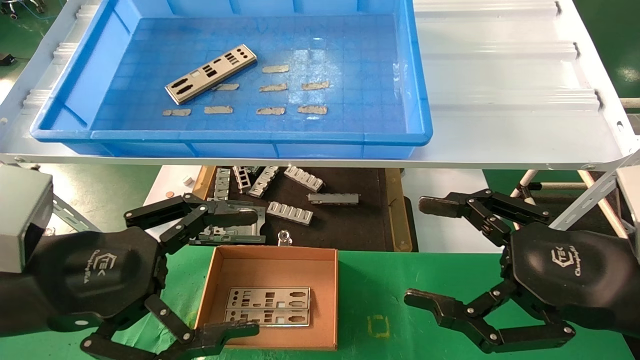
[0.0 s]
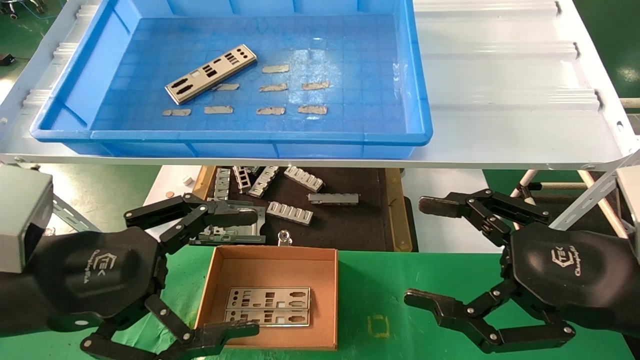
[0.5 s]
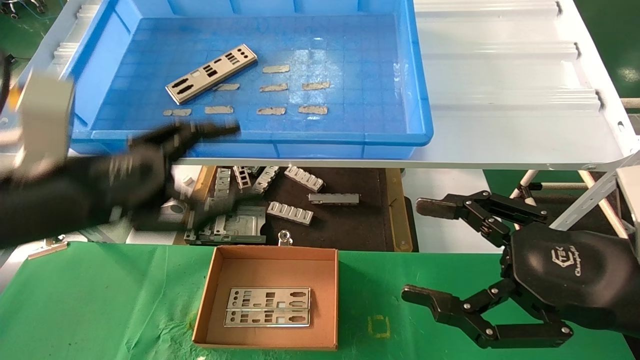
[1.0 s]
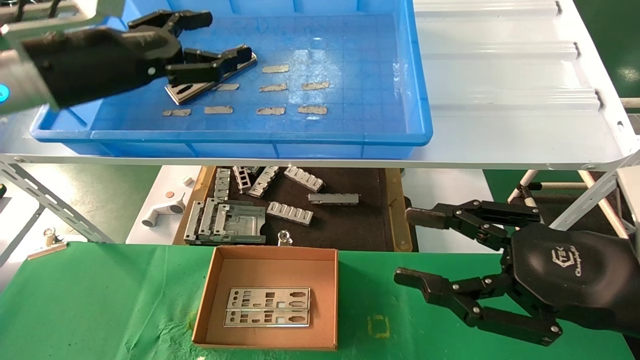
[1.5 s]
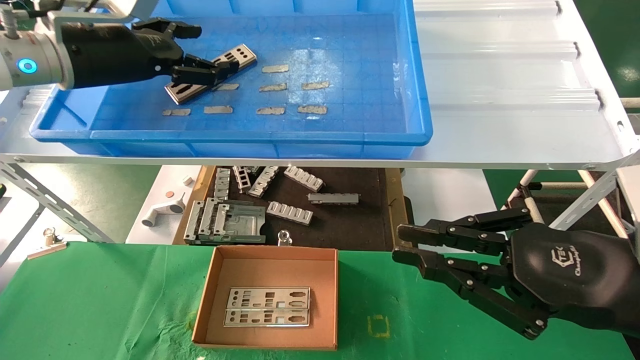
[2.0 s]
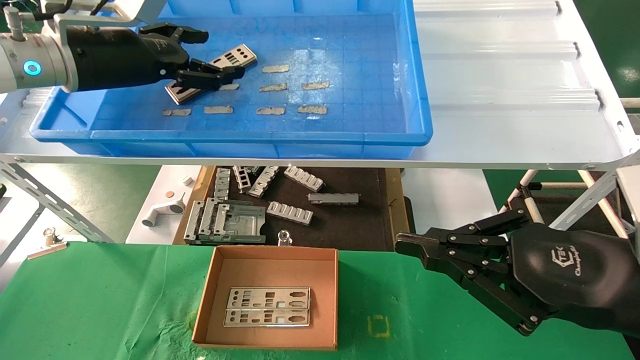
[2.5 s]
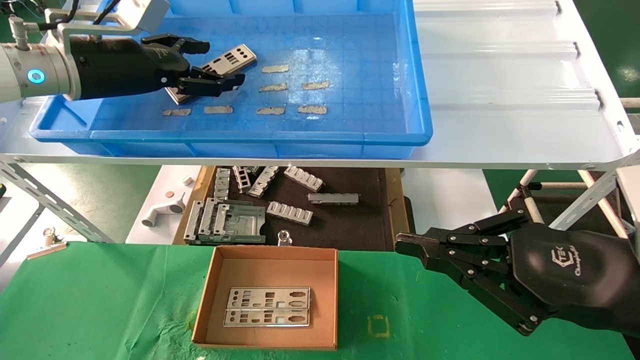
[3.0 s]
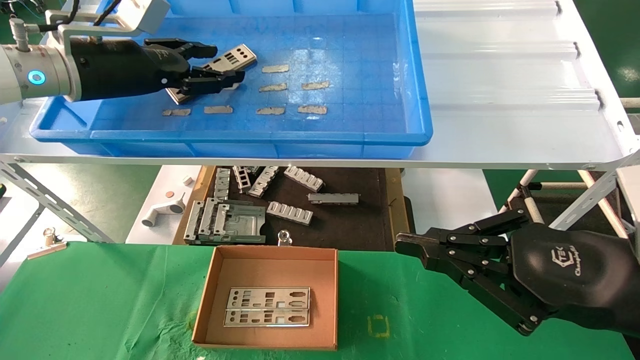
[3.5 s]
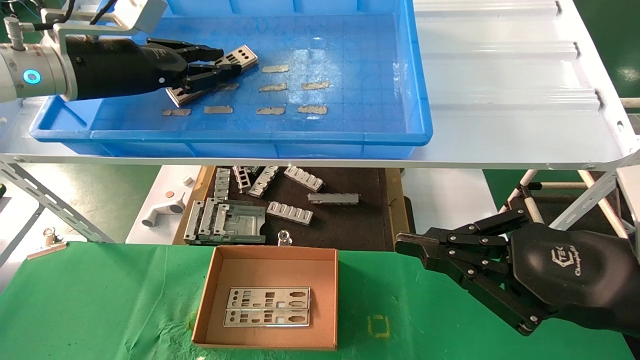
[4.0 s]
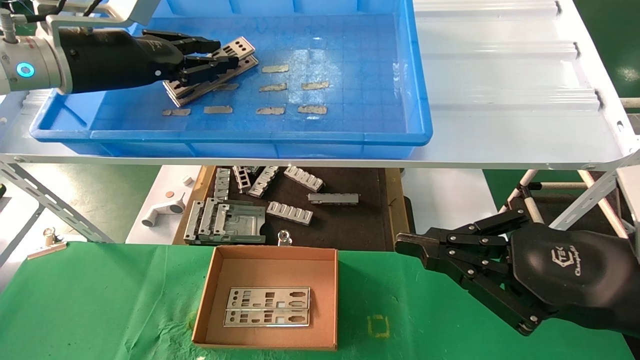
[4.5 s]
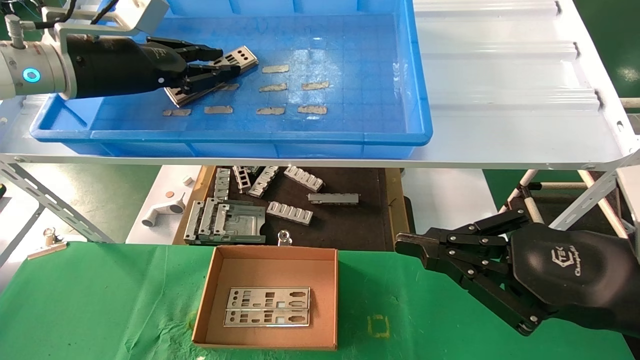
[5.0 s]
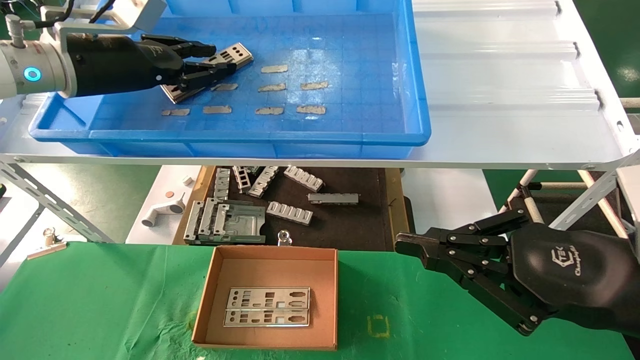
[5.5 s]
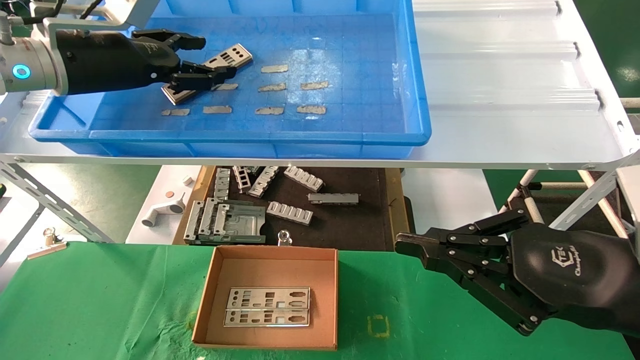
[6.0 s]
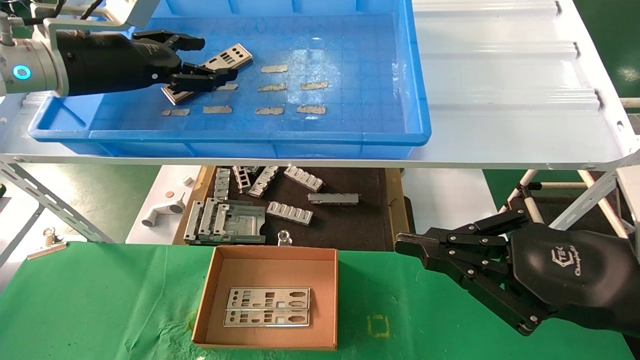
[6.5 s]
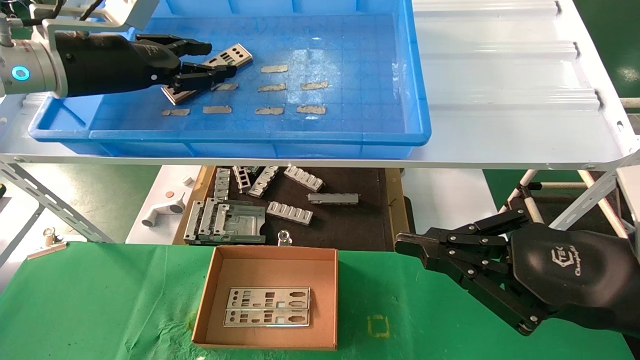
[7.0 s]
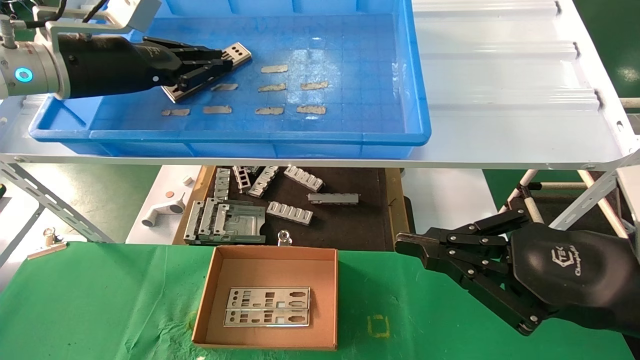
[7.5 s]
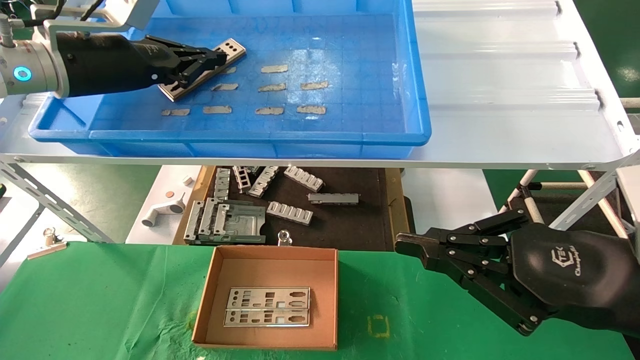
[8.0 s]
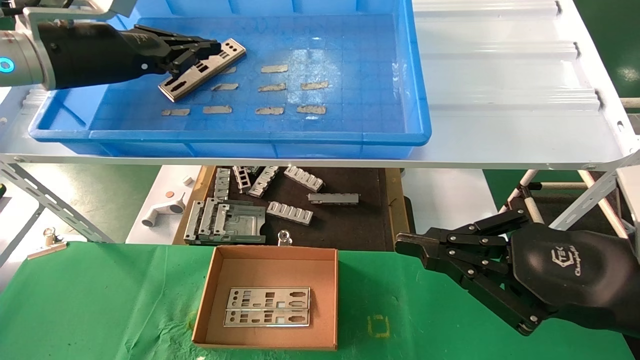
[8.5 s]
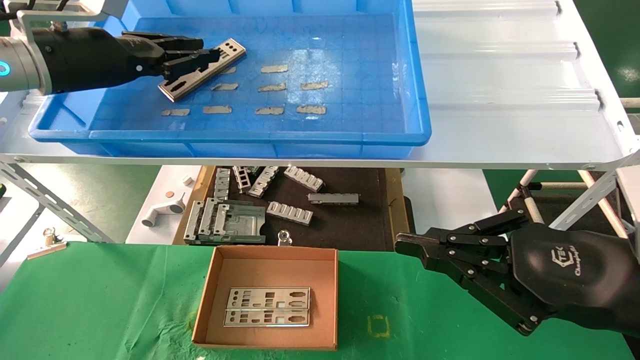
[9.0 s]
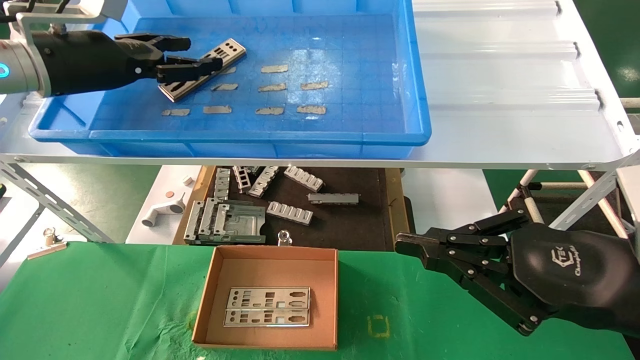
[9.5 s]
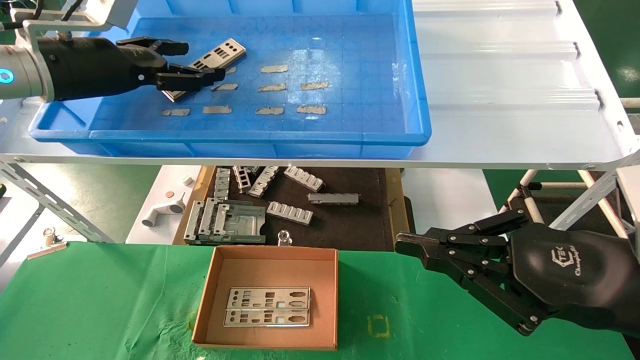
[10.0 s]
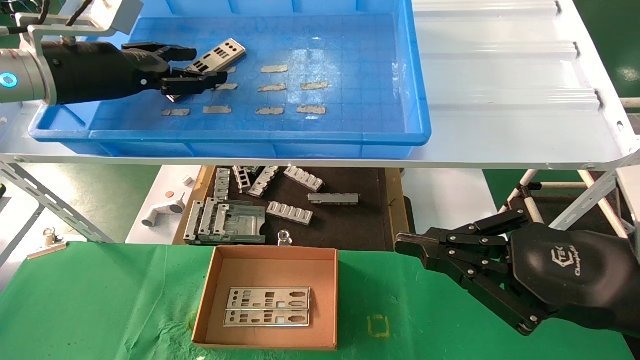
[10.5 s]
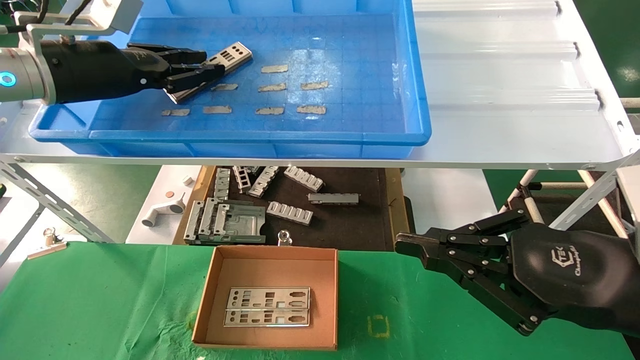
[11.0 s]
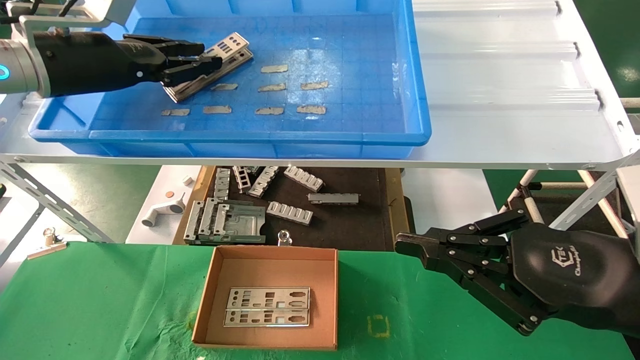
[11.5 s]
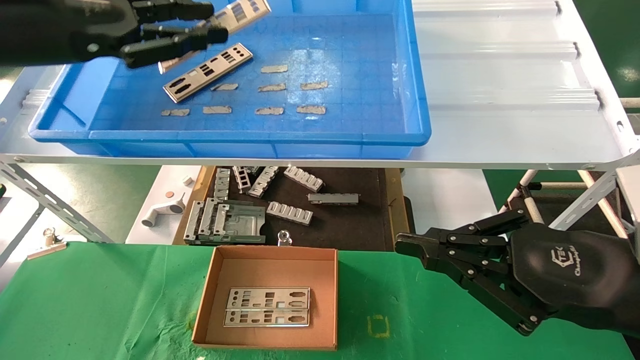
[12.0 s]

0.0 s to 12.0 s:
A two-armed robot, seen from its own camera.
Task of the whole recording: pick up the parts on the tray and put them in the cardboard box.
Step, 1.0 to 11.0 s: Pick up the IO bracket from the container box.
0.0 to 2.0 s: The right gripper closes its fingers. The left gripper moves forward and upward, roughly 25 cm.
2.0 to 4.0 s: The left gripper closes its fingers.
4.0 to 6.0 s: The two grippers keep their place.
6.0 to 8.0 s: The left gripper closes up.
8.0 to 10.0 s: The left gripper opens.
10.0 to 12.0 s: The left gripper moves backward, about 10 cm, and closes up.

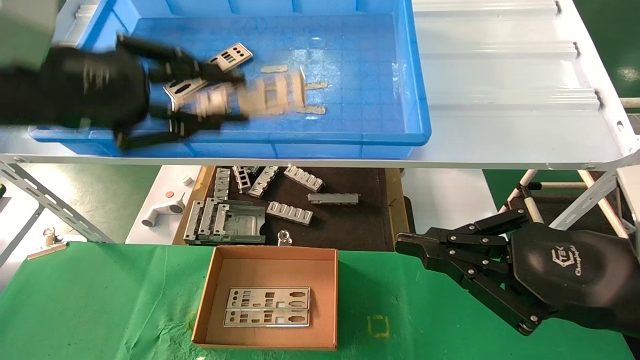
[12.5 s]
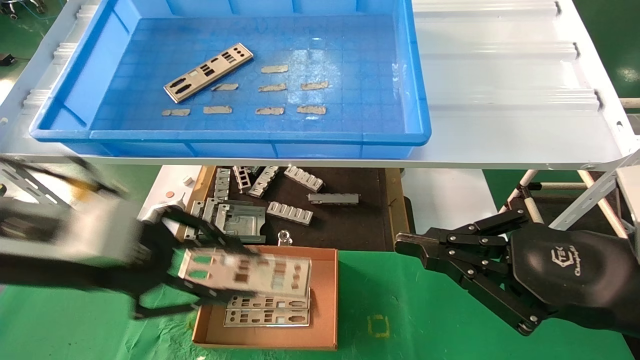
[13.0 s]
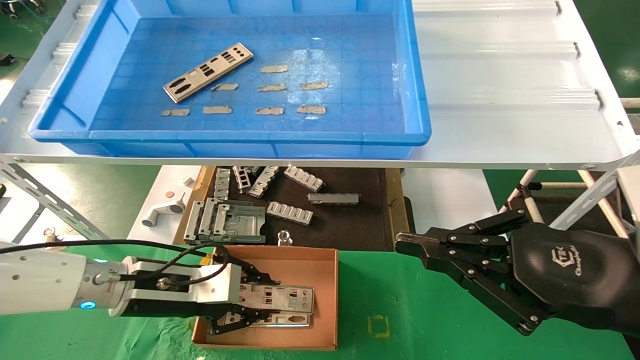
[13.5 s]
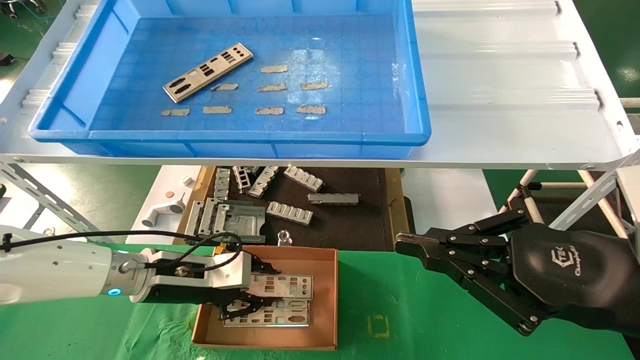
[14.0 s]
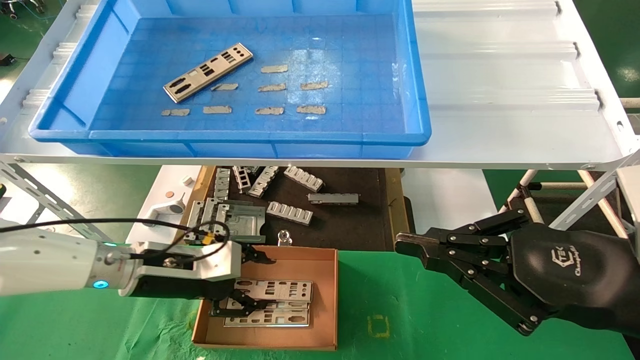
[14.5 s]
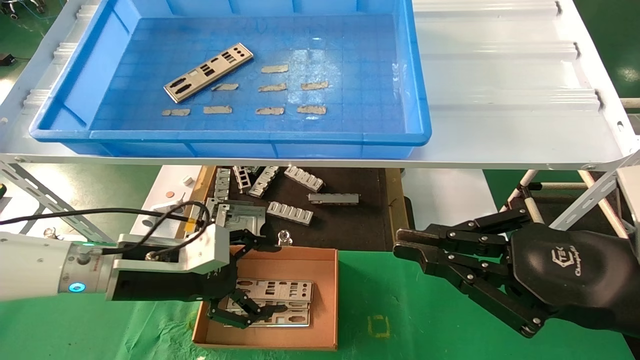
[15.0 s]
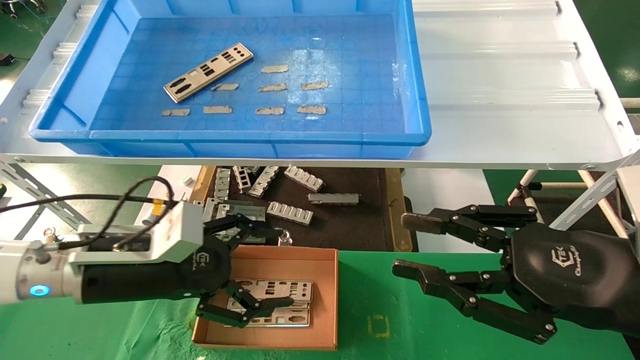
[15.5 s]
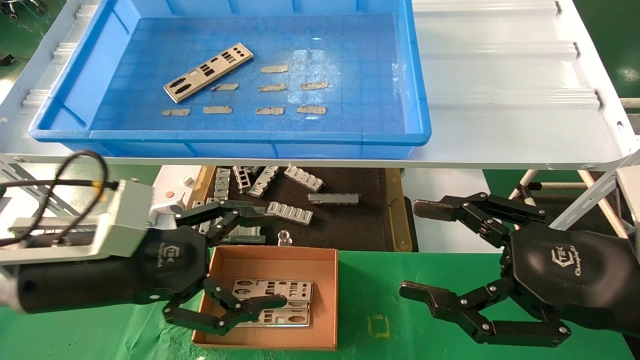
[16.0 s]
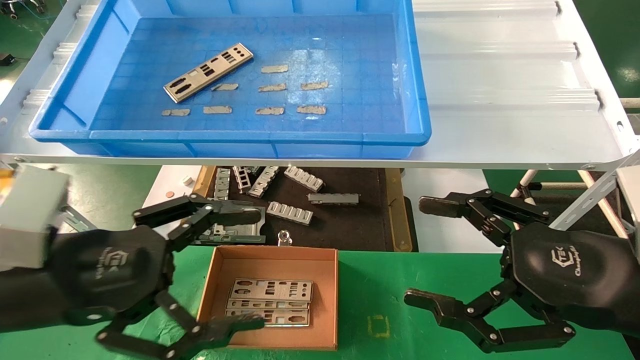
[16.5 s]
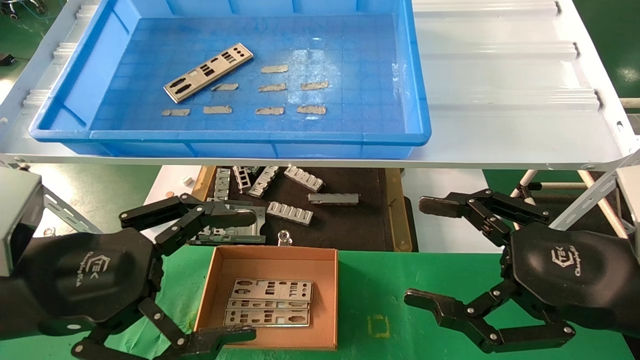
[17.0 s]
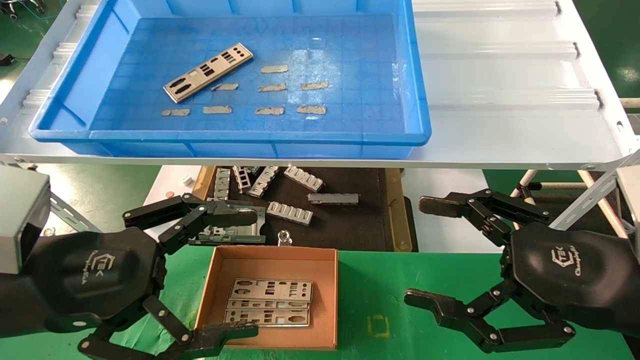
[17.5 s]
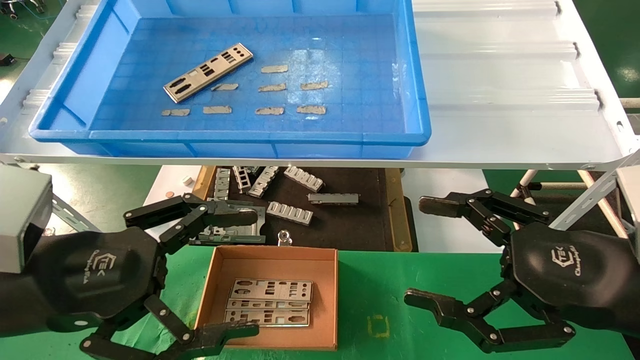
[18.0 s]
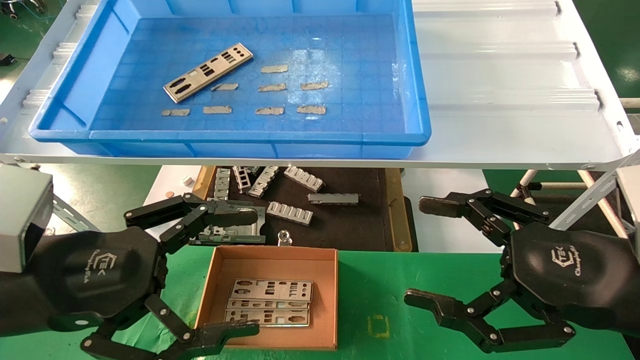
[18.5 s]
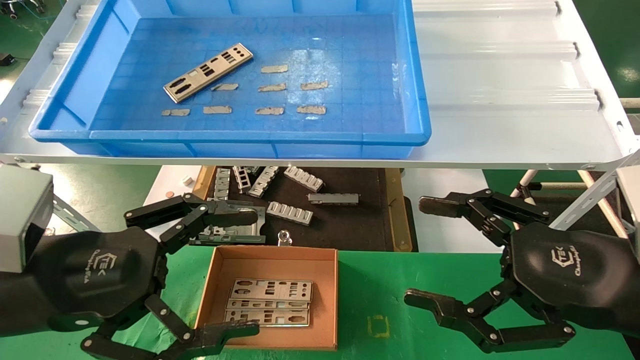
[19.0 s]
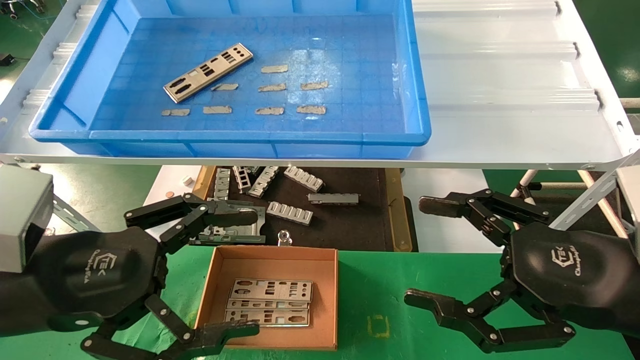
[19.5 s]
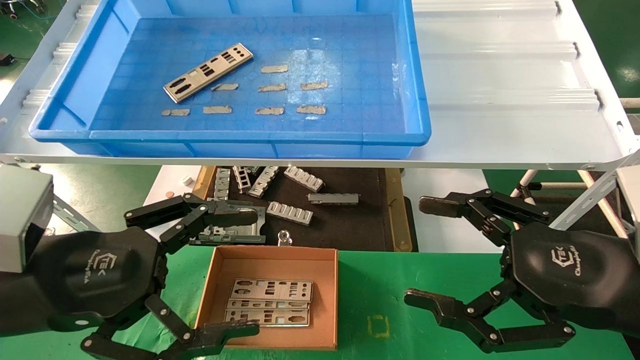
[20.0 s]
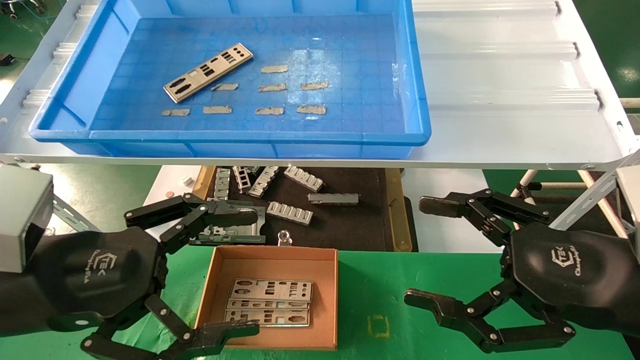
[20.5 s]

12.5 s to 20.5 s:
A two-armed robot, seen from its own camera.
Task of the whole recording: pick up the parts on the tray and put them in the cardboard box.
Step, 12.5 to 14.0 s: Place the IO bracket into the ingredient slot.
12.5 to 14.5 s: The left gripper heads downward and forward, covering approximately 25 cm.
14.5 to 16.5 s: The right gripper opens its fingers; the left gripper goes approximately 20 cm backward and upward, and opens.
16.5 to 18.5 s: The grippers make only small movements.
18.5 to 20.5 s: Both grippers stay about where they are.
